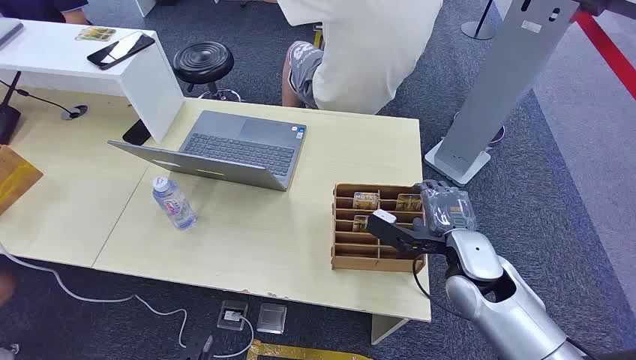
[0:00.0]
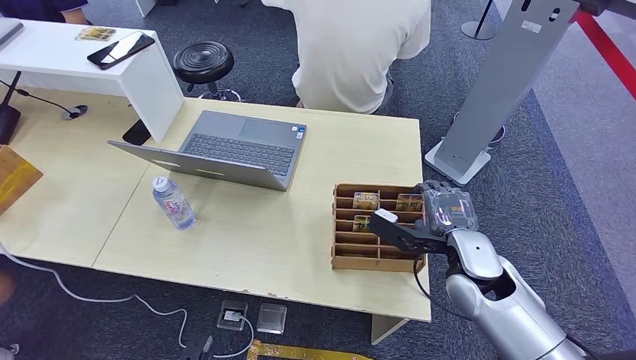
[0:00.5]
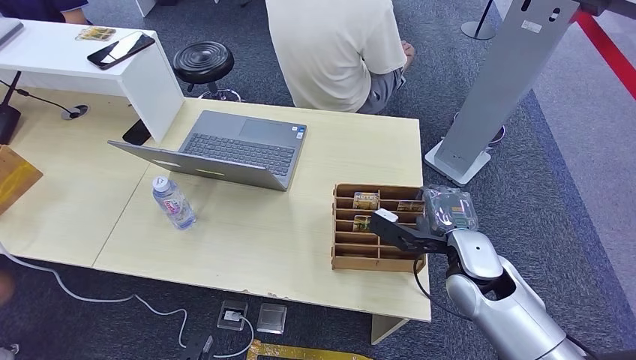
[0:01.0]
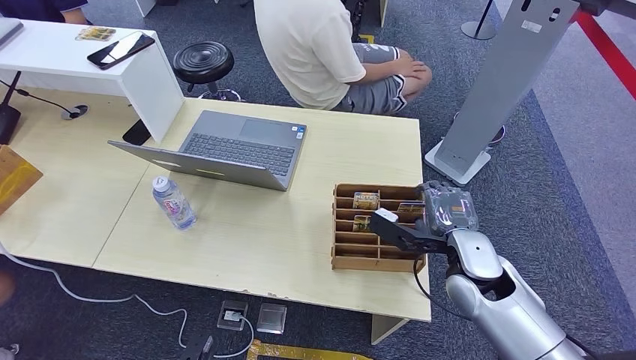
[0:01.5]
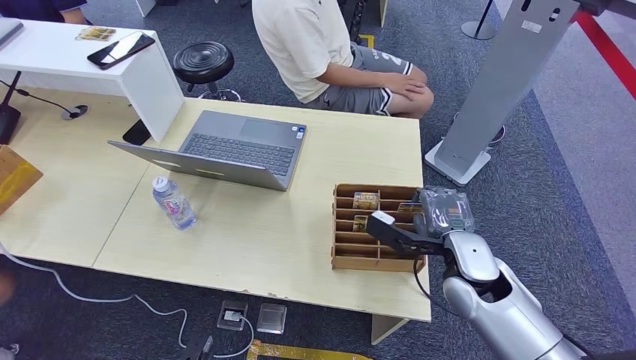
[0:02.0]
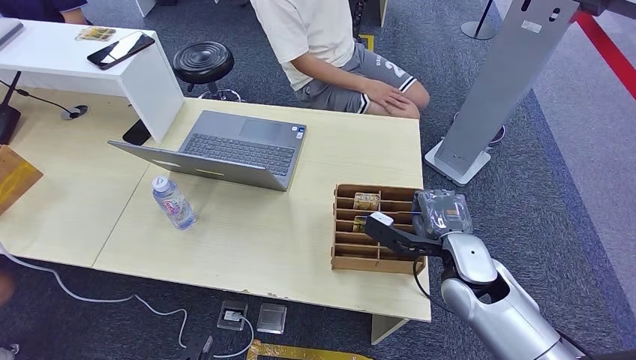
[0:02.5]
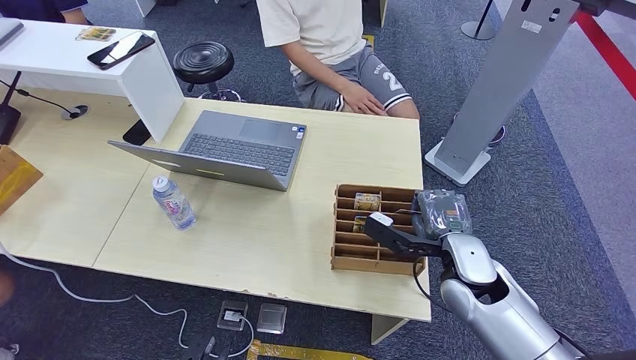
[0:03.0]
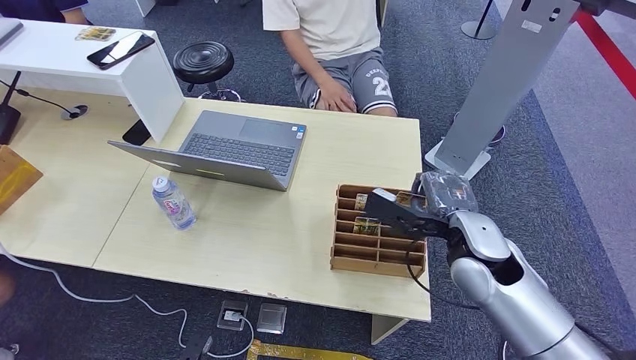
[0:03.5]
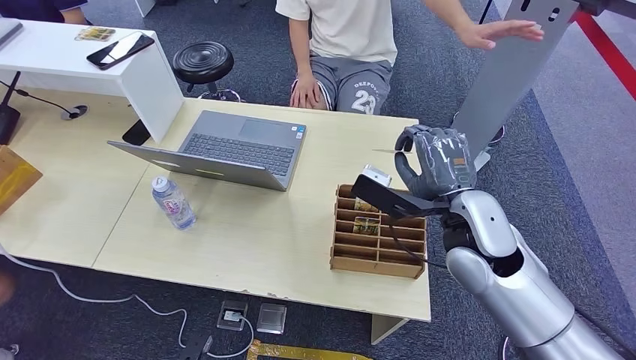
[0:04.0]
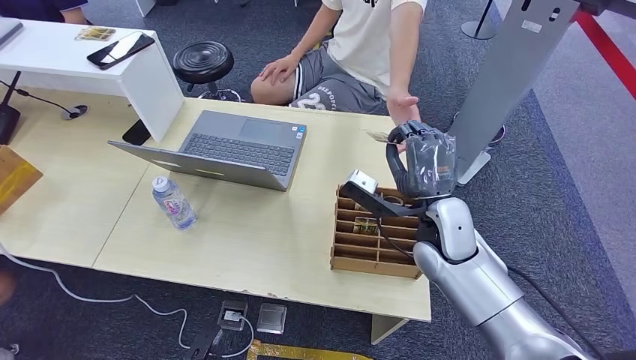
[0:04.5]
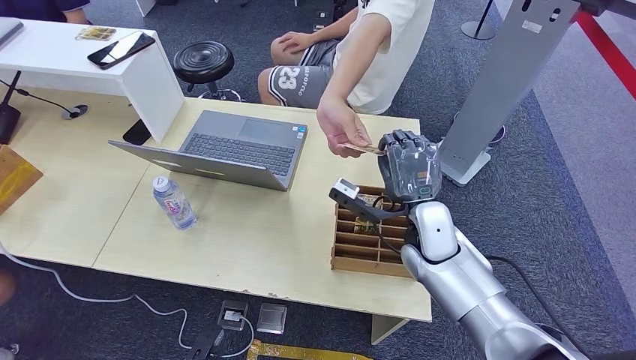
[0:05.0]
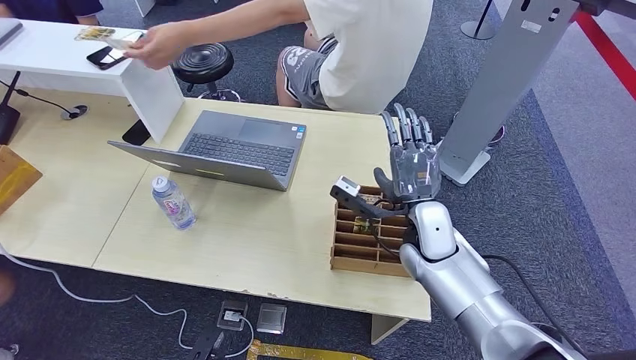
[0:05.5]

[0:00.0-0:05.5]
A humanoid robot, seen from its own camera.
Step, 0:00.0 to 0:03.5: Pick up the key card from the card box.
Step, 0:04.5 to 0:05.5: Hand the key card to the target.
0:02.0 to 0:03.5: The hands stay close to where they were, moving slightly.
0:03.5 to 0:05.5: The right hand is displaced to the left by approximately 5 cm.

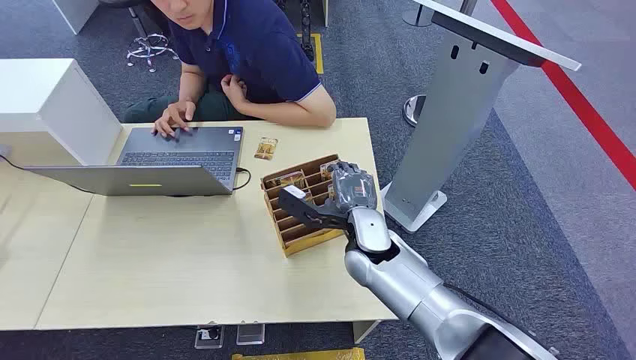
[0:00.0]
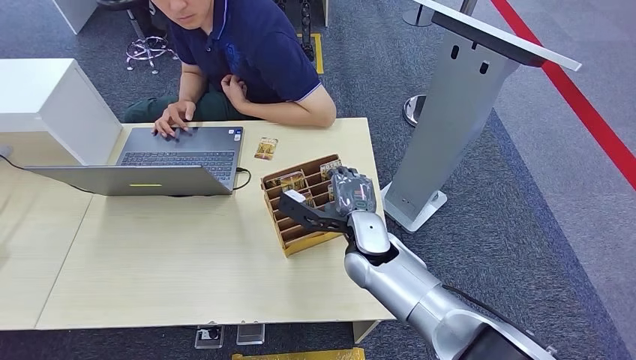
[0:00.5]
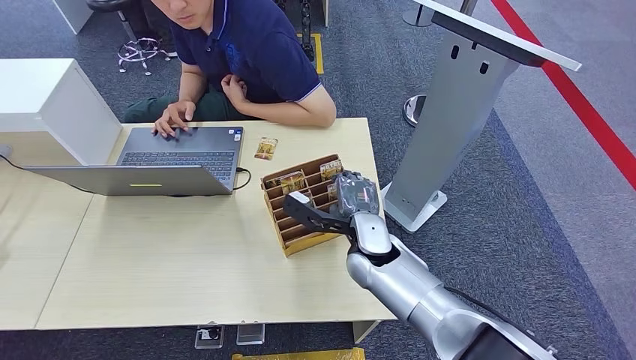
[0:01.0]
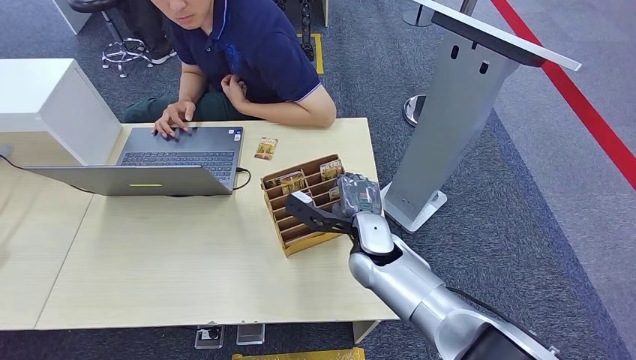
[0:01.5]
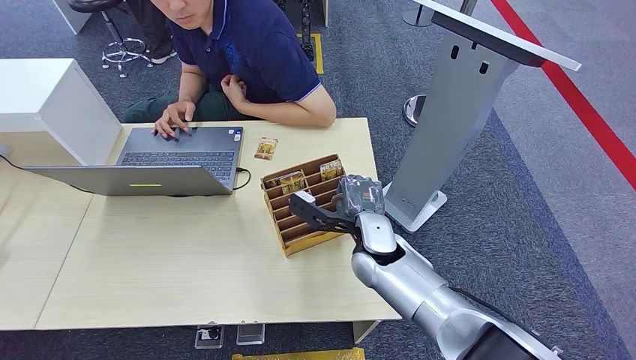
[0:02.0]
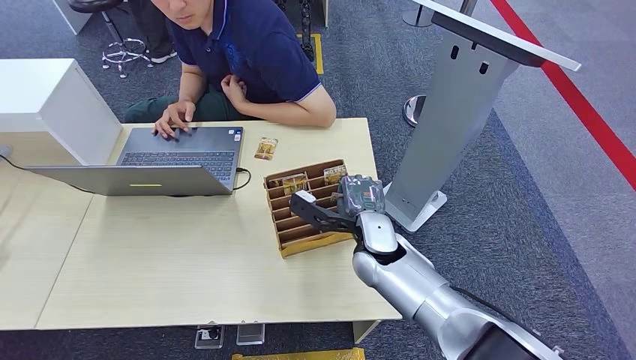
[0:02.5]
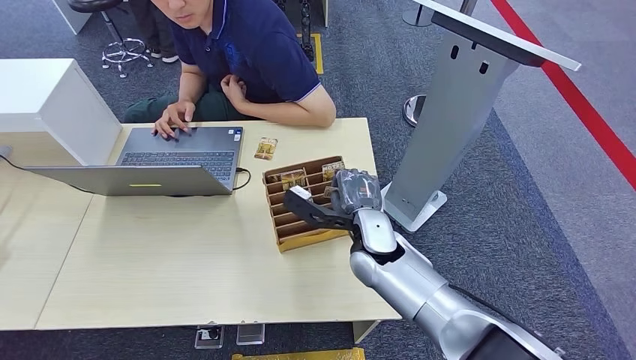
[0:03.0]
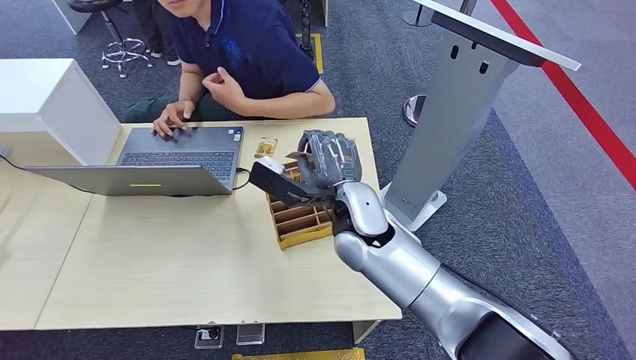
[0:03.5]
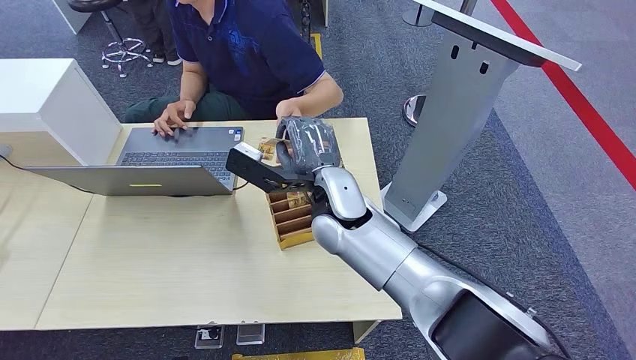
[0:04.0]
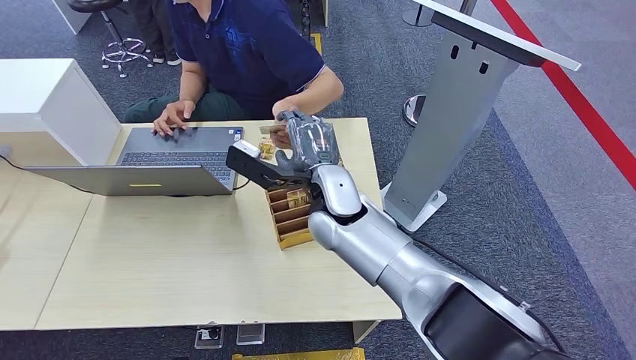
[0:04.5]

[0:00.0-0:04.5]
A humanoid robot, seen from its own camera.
Step, 0:00.0 to 0:02.0: Pick up the key card from the card box.
Step, 0:02.5 to 0:04.5: Hand the key card to the target.
0:02.0 to 0:04.5: The right hand is displaced upward and to the left by roughly 15 cm.
